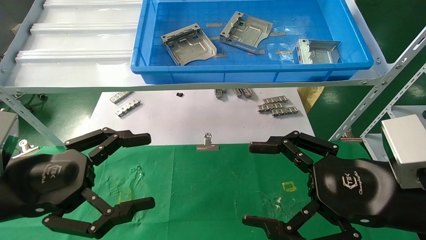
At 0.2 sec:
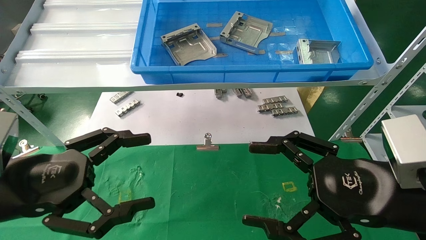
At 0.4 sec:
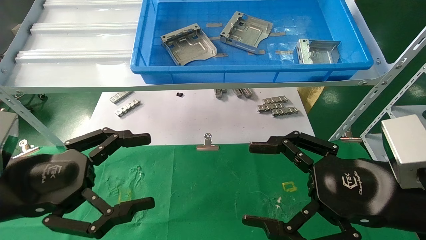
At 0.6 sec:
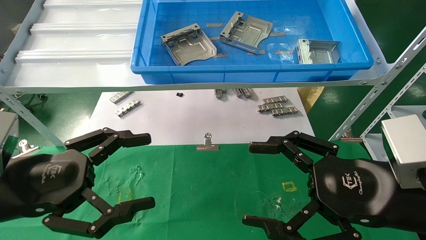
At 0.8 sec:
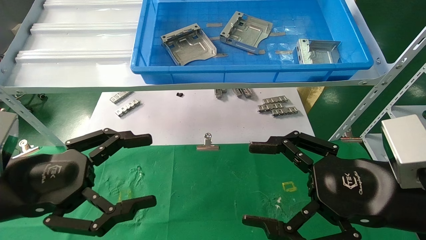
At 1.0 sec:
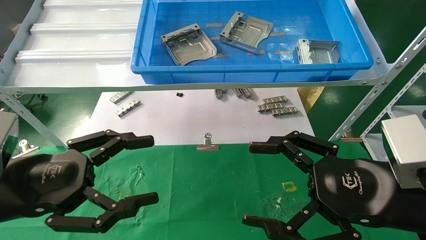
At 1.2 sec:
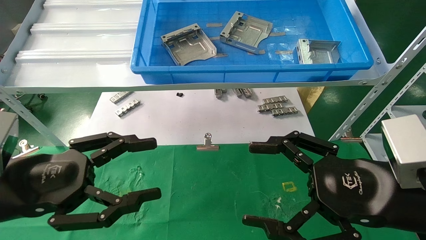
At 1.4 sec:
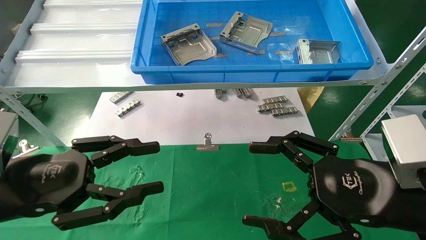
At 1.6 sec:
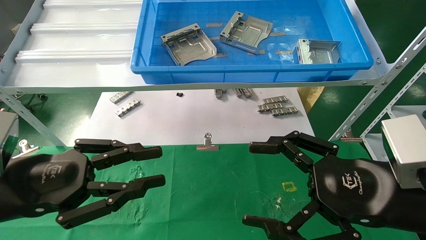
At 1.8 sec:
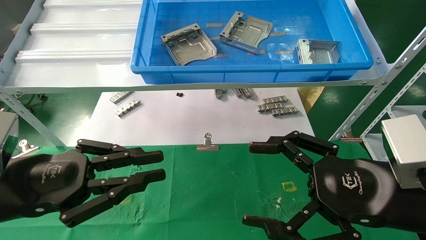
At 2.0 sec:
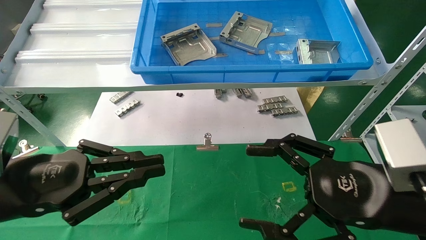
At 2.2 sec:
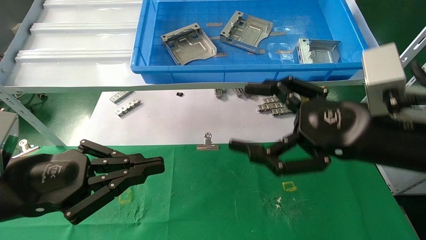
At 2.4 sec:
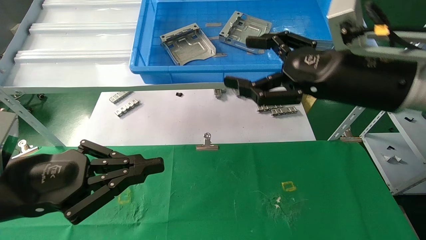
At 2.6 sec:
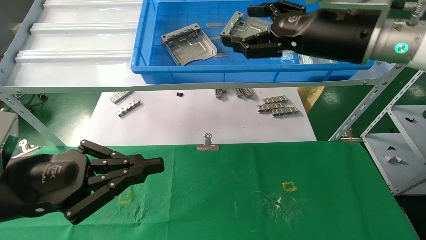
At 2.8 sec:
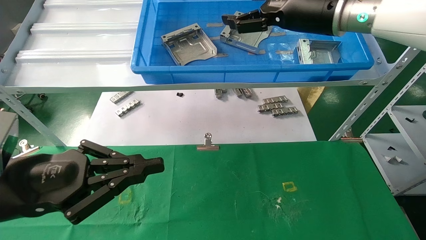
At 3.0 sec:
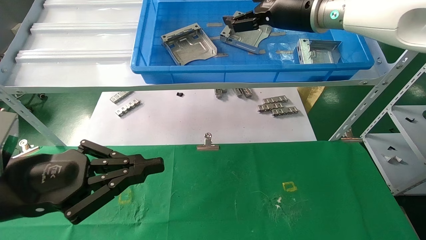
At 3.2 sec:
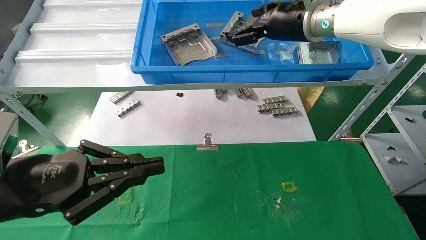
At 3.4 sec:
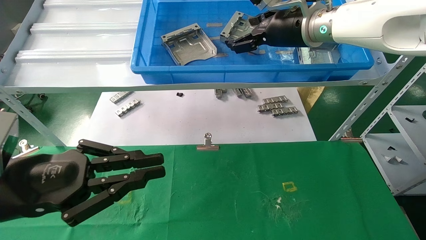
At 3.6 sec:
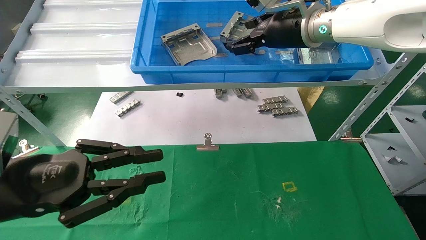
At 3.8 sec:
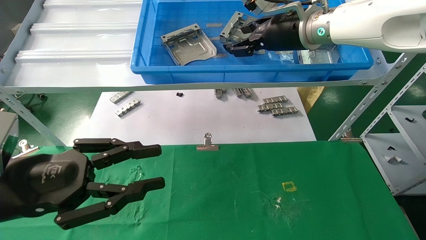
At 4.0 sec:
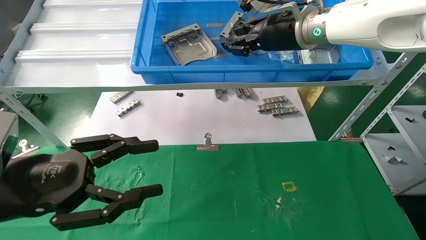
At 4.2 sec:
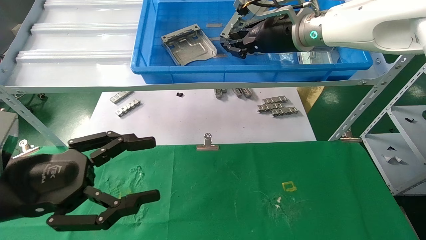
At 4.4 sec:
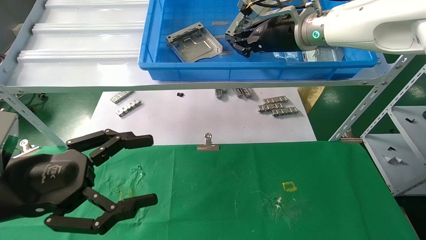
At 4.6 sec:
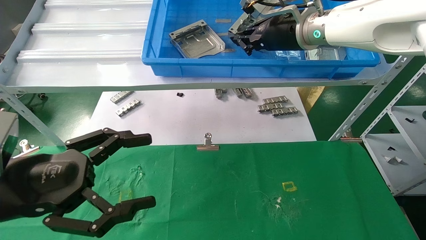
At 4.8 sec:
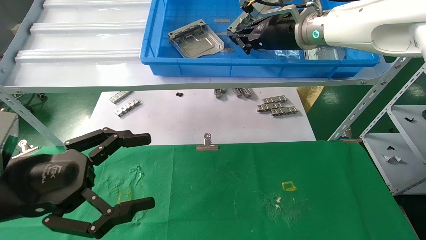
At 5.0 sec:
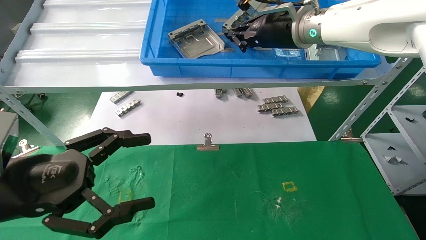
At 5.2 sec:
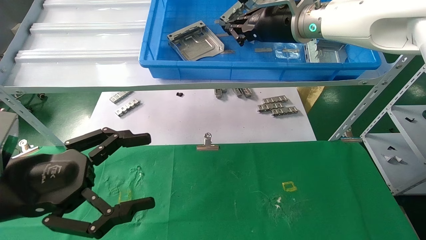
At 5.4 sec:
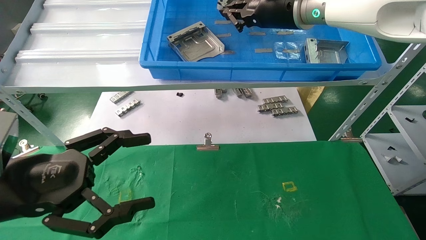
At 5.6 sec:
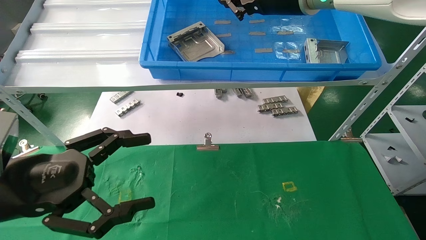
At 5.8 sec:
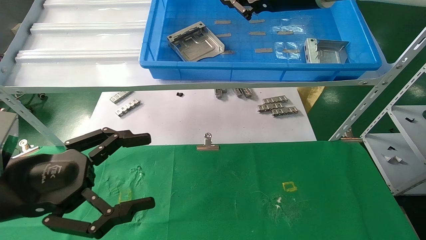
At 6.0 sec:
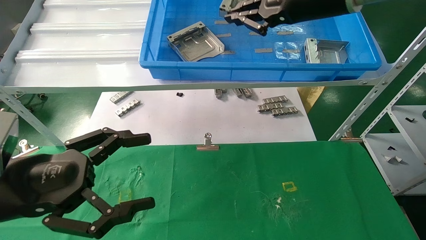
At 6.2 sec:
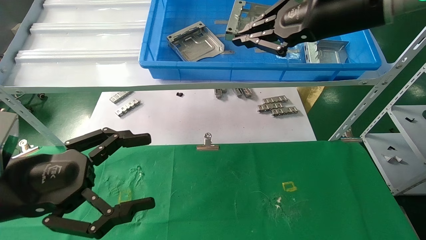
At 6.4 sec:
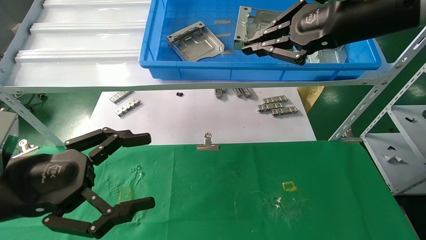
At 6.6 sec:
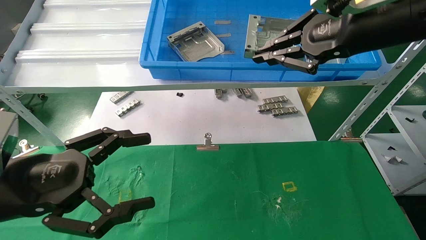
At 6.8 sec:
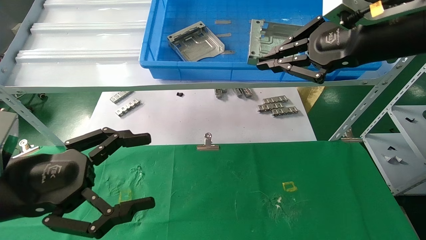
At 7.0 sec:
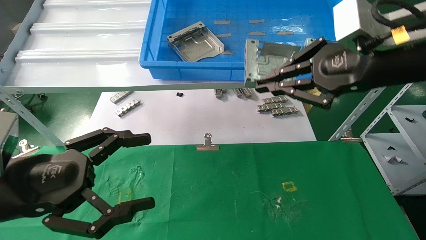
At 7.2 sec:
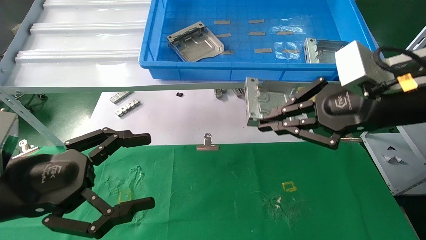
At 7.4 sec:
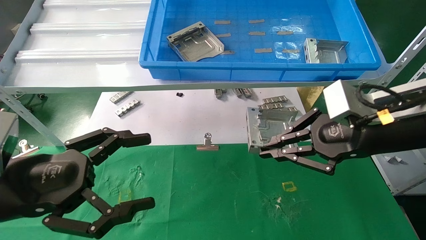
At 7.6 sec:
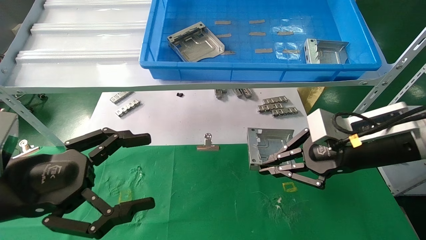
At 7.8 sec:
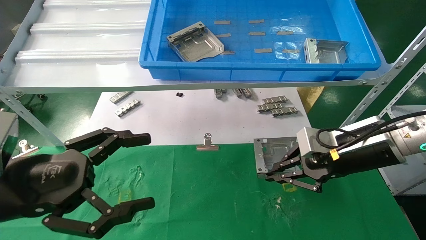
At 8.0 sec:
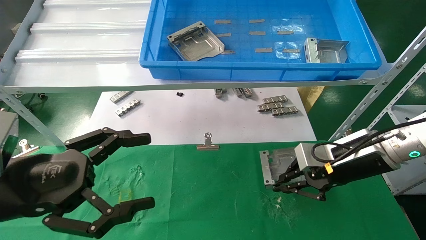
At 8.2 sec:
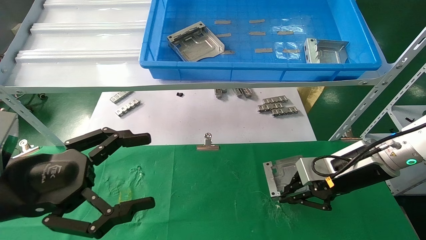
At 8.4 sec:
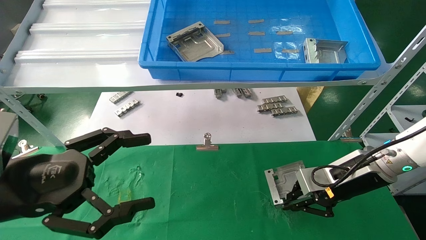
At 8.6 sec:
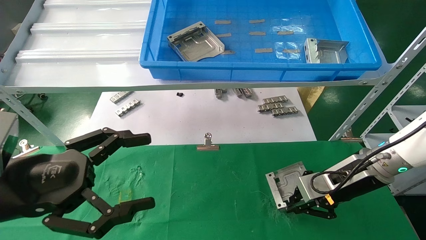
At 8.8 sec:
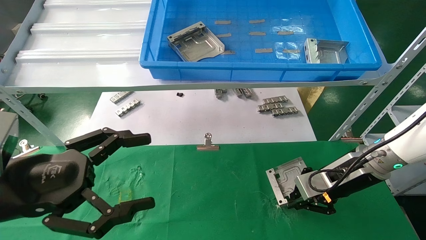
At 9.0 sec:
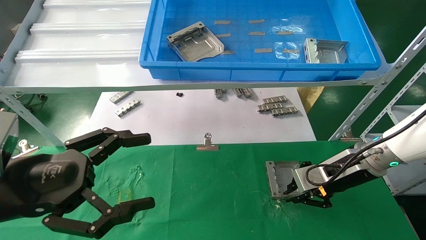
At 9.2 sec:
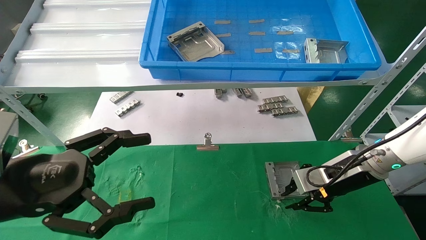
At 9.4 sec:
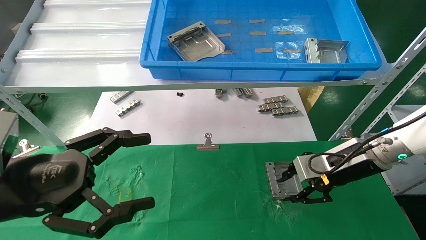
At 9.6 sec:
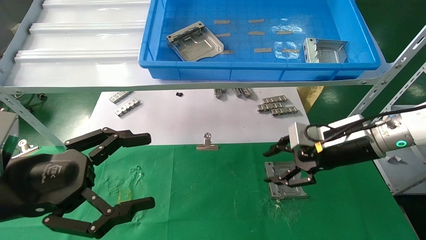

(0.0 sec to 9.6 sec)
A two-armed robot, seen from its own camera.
Task of the whole recording: use the mechanical arm to pick up the parts and place them on the table.
Step, 2.4 sec - 4.8 sec: Pick up the hard drive bracket from the feeding area.
Step, 5.0 sec - 9.2 sec: Place the hard drive bracket into the box.
0.0 sec - 1.6 sec: The left gripper closes.
1.6 sec - 3.2 sec: The right gripper goes about 30 cm forward and upward; the left gripper closes up.
3.2 sec - 4.8 sec: The left gripper opens up. Meanwhile the right gripper closes its fingers.
4.8 sec - 6.4 sec: The right gripper goes roughly 15 cm backward and to the right.
6.4 sec - 8.0 sec: The right gripper moves downward, about 20 cm.
8.0 sec - 9.6 sec: The right gripper opens.

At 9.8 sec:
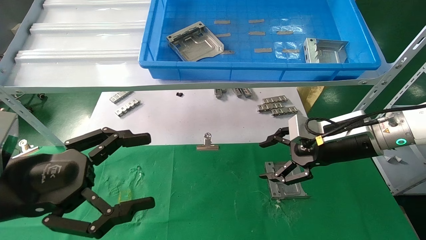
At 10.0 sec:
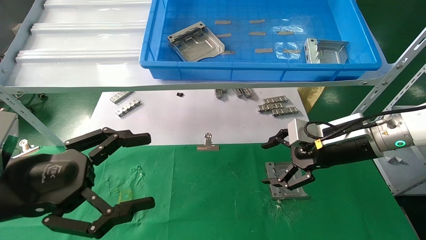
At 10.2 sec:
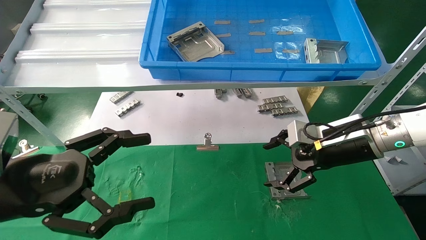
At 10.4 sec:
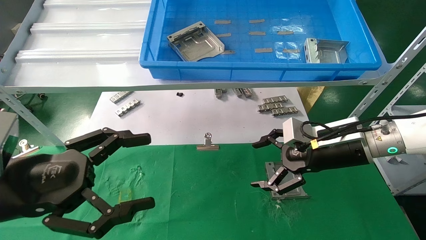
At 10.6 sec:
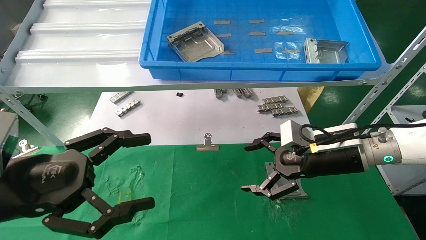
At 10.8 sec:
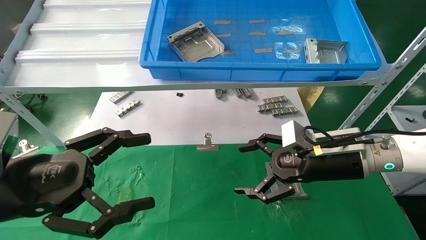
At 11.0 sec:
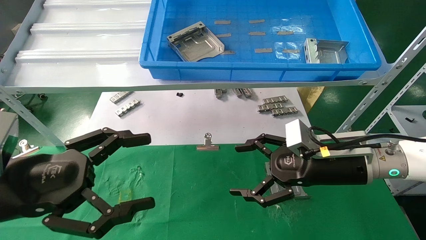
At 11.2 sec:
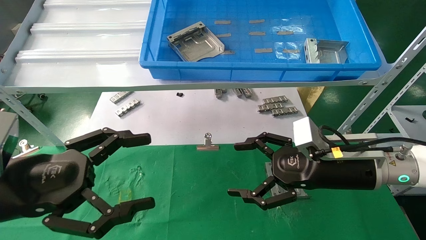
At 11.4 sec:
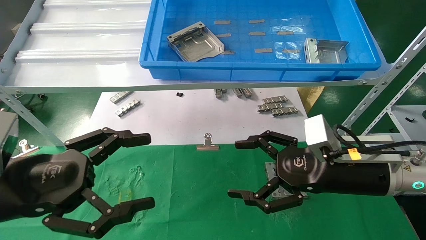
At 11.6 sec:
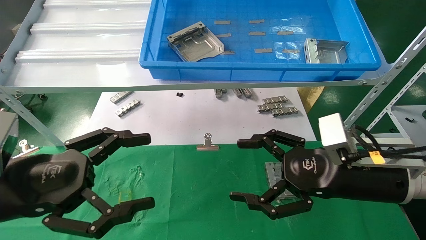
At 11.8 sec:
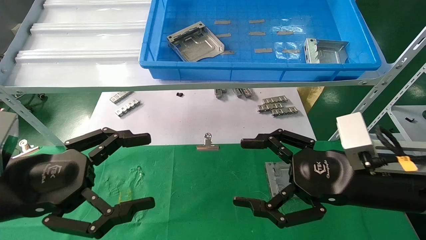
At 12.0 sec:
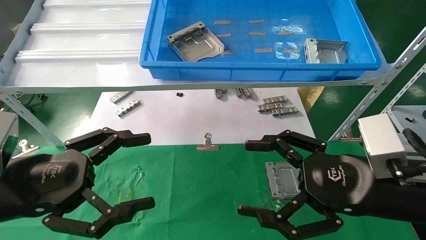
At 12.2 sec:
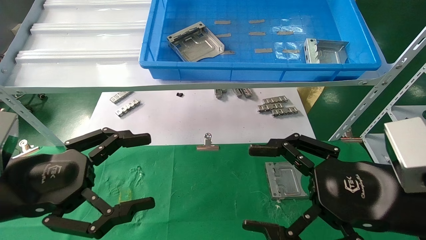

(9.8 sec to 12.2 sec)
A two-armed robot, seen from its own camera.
Task of the whole recording: use the mechanical arm to pick up the parts and place them on the table.
9.8 sec - 11.0 sec: The right gripper moves about 5 cm, and opens up.
11.0 sec - 12.2 sec: The right gripper goes roughly 10 cm backward.
